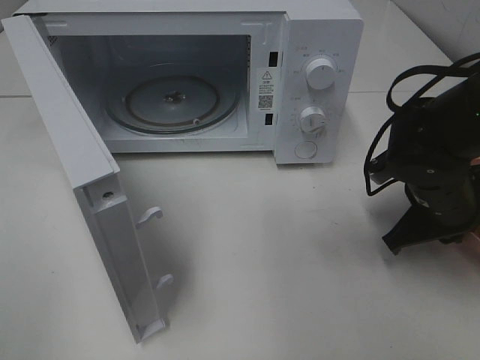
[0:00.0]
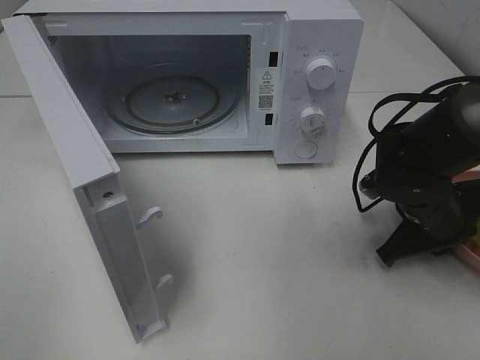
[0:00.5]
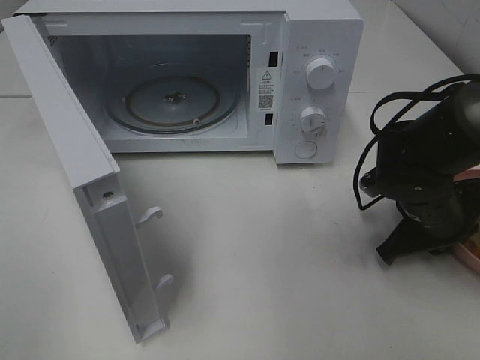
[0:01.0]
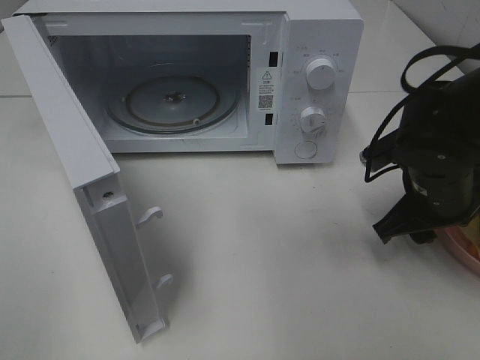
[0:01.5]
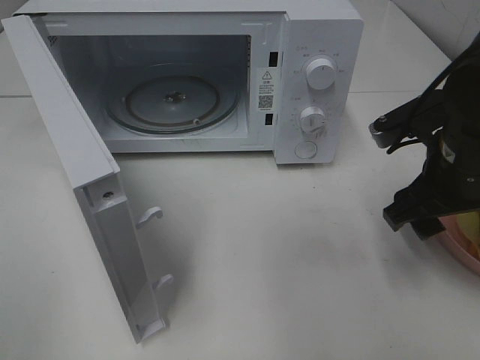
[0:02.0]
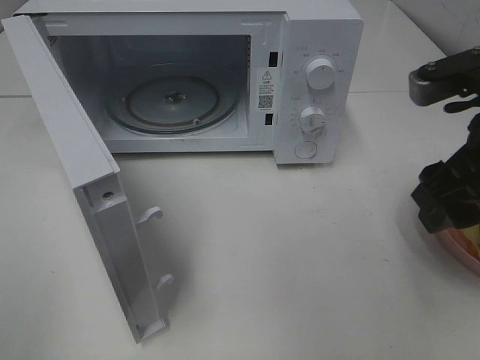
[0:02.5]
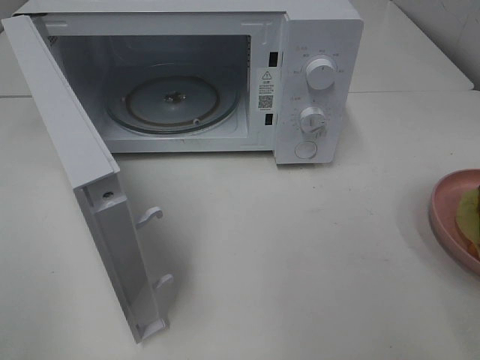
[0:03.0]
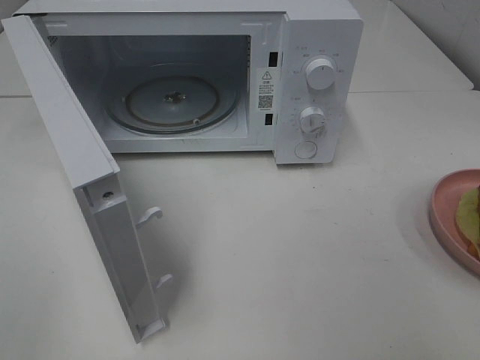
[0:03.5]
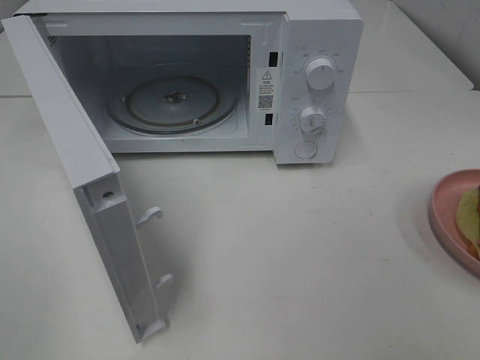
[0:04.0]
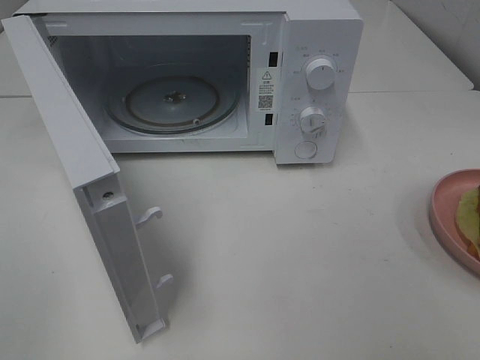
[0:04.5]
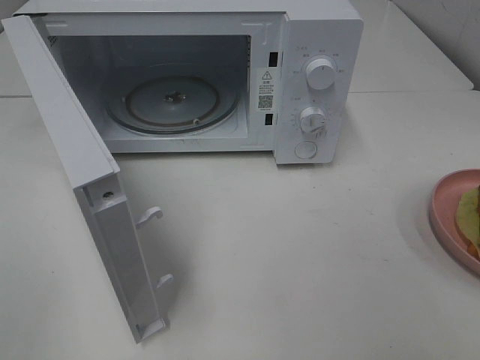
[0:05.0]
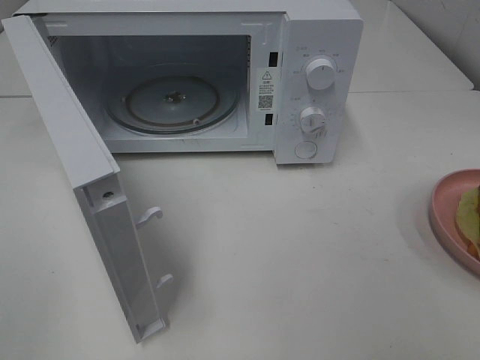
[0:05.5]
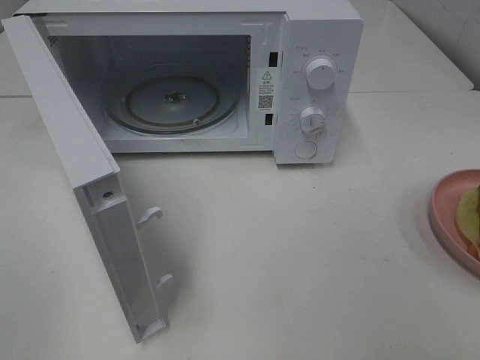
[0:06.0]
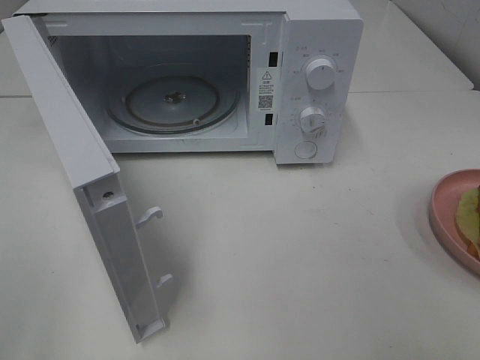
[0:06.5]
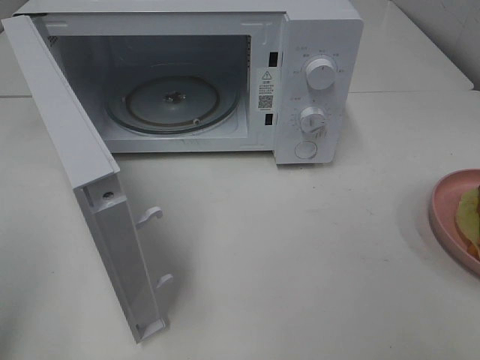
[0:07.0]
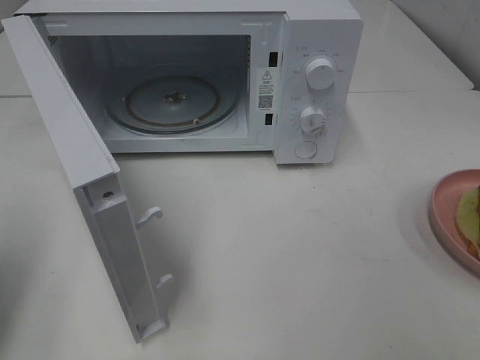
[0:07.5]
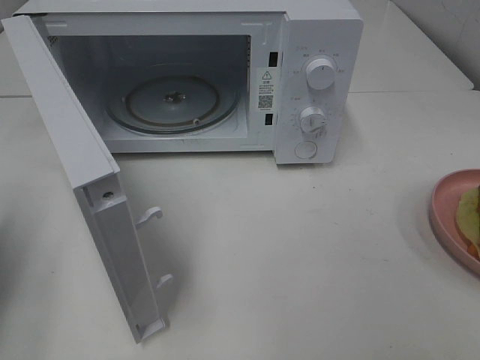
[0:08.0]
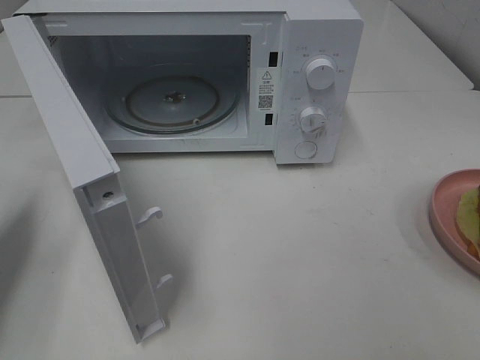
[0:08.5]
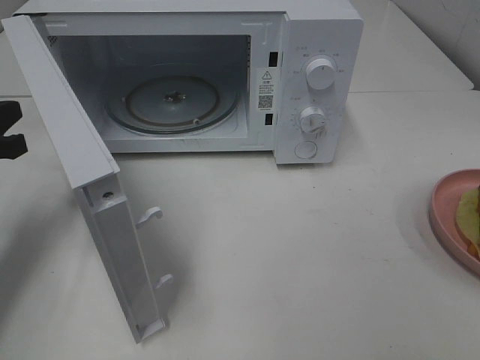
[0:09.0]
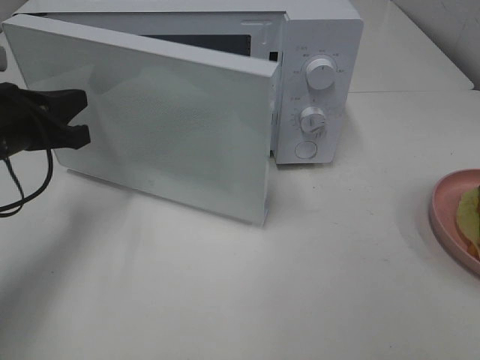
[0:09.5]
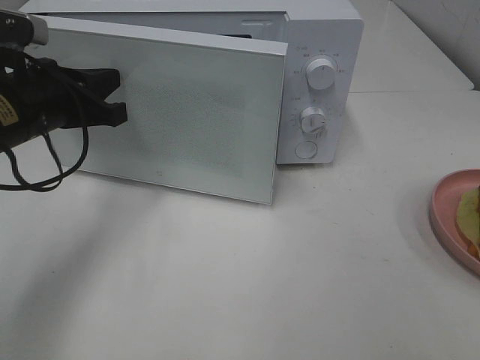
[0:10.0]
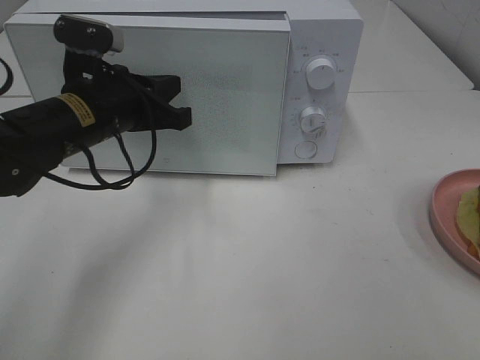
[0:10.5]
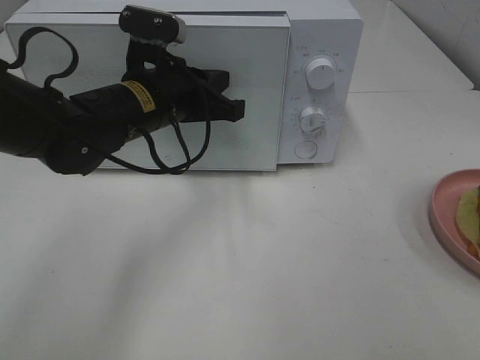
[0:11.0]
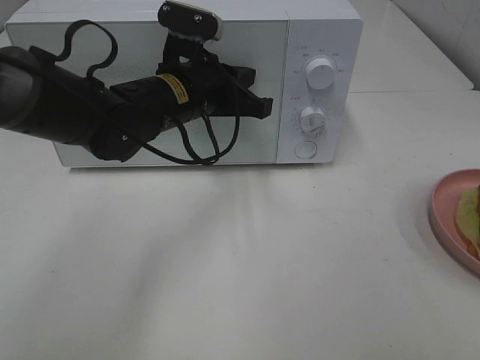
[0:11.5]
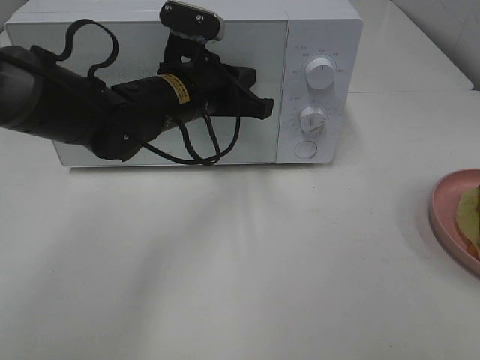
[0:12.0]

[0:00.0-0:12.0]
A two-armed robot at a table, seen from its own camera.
Task of the whole recording: Heat Sandwich.
Step, 0:00.0 to 0:02.5: Right hand: place the plate on the table.
0:00.0 to 0:02.0: The right gripper goes about 10 cm upward, and opens its fingers.
0:02.0 to 0:04.0: The right gripper moves backward and upward, some 25 cm.
0:06.0 to 0:08.0: The left gripper goes approximately 20 cm forward, and closes its fingers.
0:08.0 to 0:10.0: The left gripper shifts approximately 20 cm to the right and forward.
0:10.0 to 0:12.0: The left gripper shifts some 15 cm to the right.

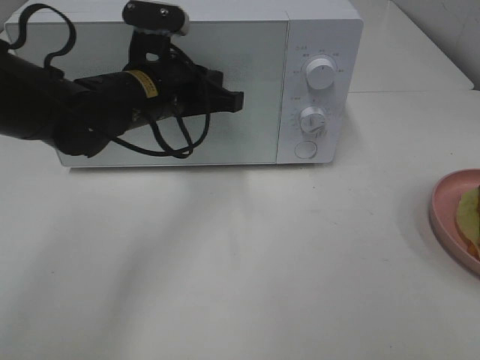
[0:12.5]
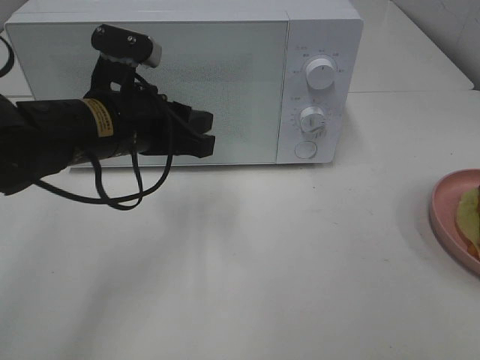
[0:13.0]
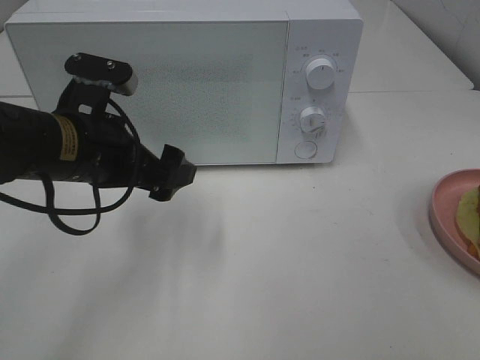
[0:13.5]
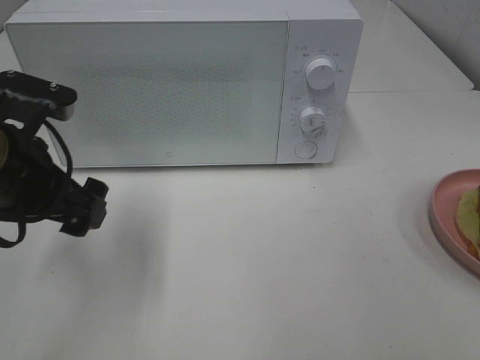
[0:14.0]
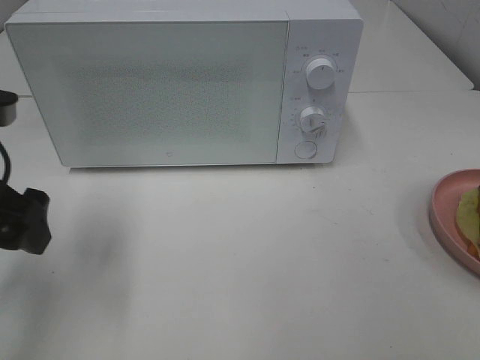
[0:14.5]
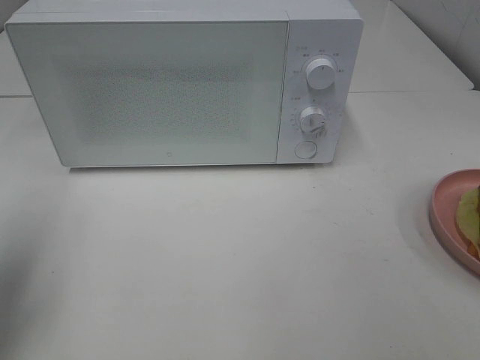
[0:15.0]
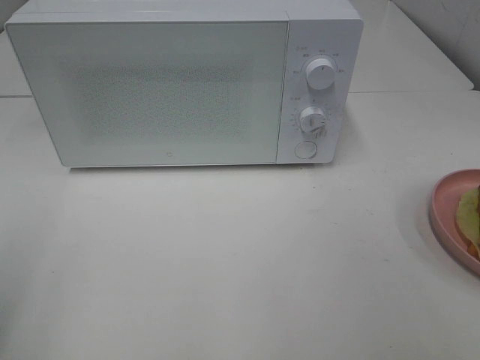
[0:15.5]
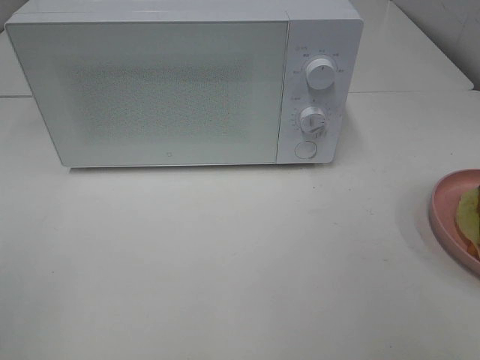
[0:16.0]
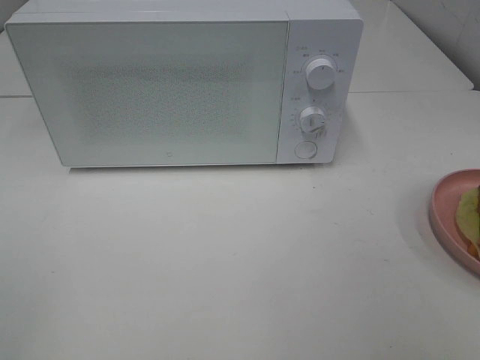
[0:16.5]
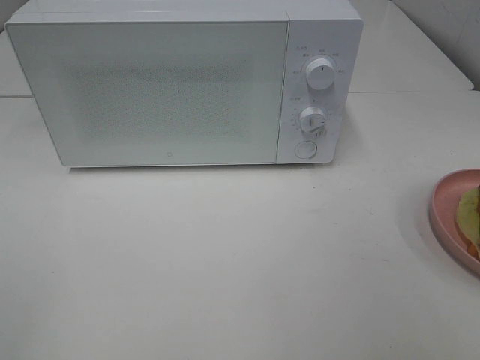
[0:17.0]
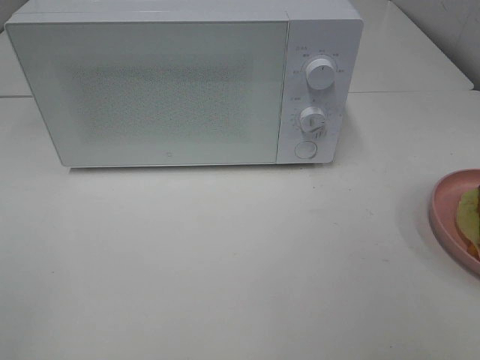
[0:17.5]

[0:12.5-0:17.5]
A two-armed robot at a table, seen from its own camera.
Task of the whole recording: Heat Sandwich.
0:12.5 to 0:15.0: The left gripper goes some 30 cm to the left and backward, and opens up.
0:15.0 to 0:17.5: The left gripper is displaced backward by approximately 20 cm.
